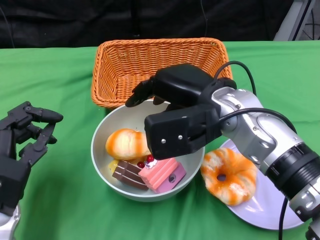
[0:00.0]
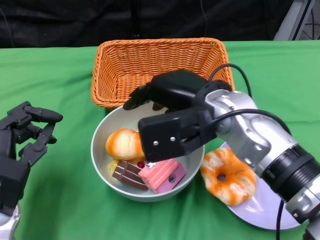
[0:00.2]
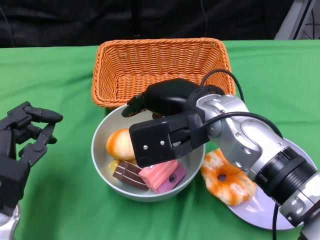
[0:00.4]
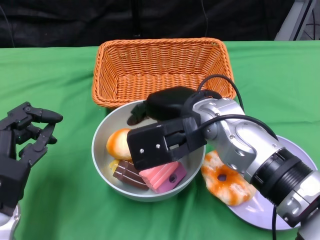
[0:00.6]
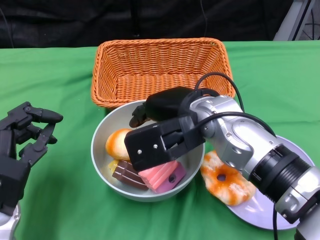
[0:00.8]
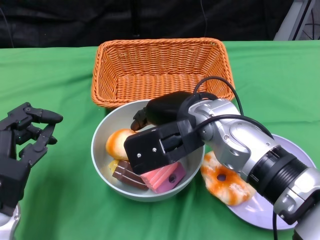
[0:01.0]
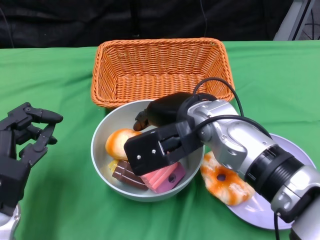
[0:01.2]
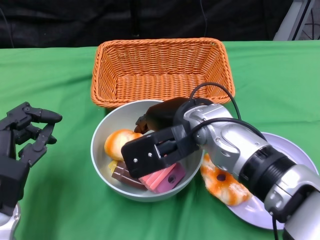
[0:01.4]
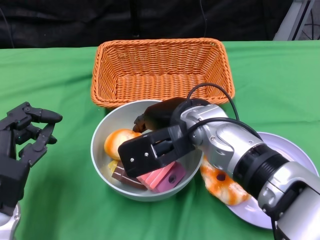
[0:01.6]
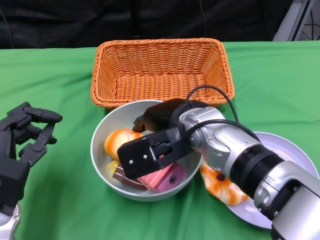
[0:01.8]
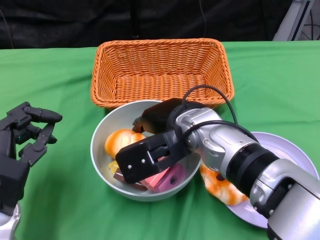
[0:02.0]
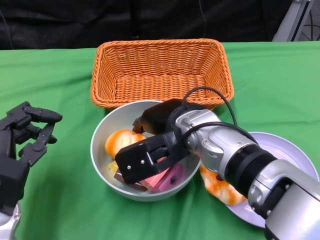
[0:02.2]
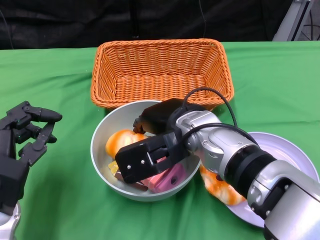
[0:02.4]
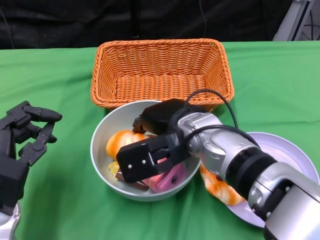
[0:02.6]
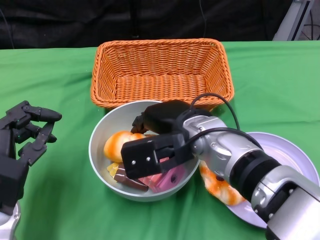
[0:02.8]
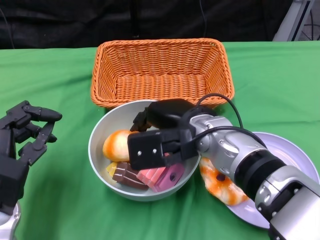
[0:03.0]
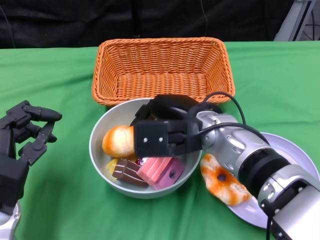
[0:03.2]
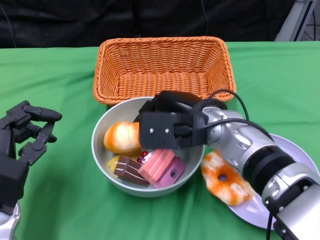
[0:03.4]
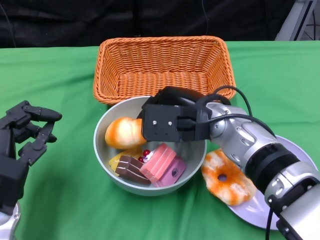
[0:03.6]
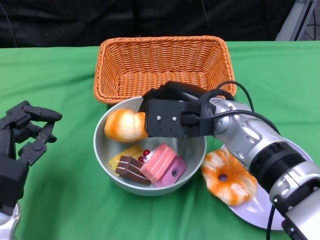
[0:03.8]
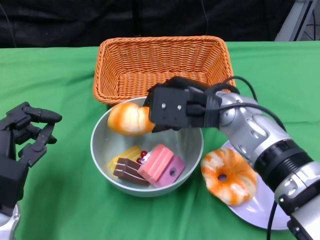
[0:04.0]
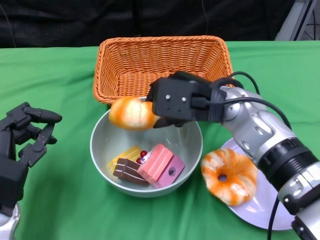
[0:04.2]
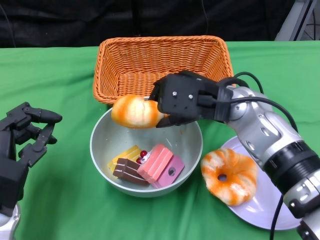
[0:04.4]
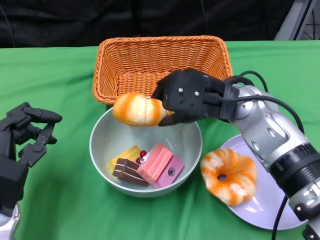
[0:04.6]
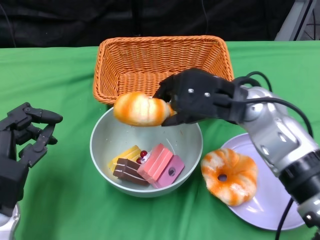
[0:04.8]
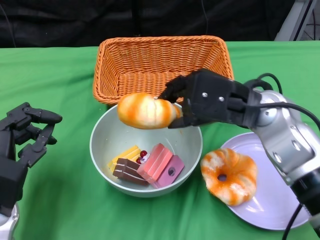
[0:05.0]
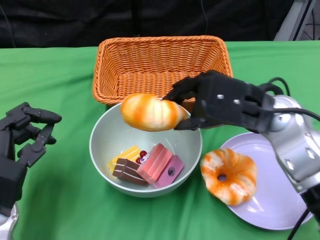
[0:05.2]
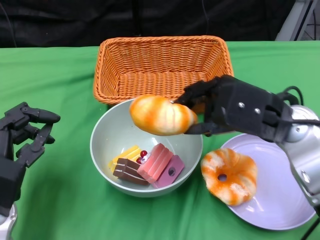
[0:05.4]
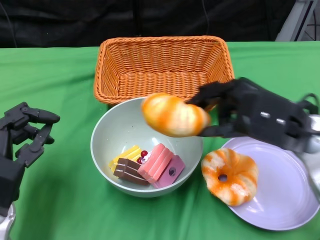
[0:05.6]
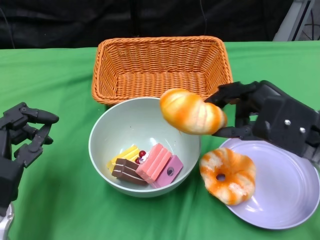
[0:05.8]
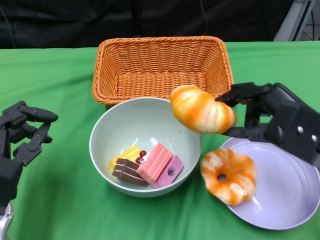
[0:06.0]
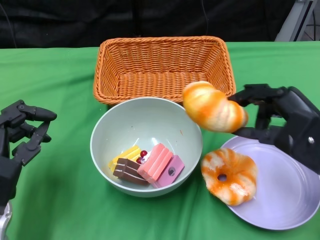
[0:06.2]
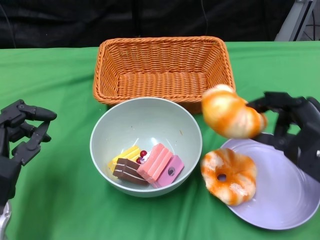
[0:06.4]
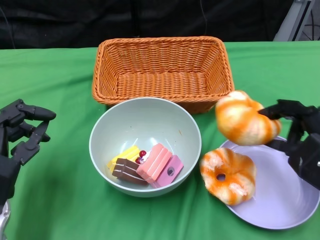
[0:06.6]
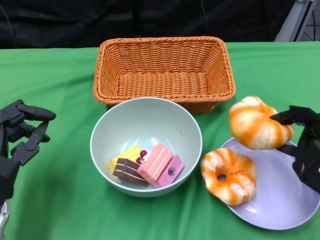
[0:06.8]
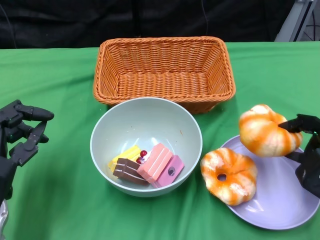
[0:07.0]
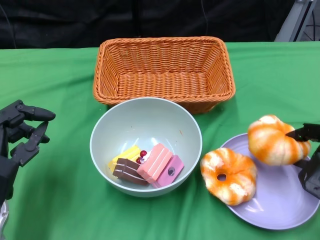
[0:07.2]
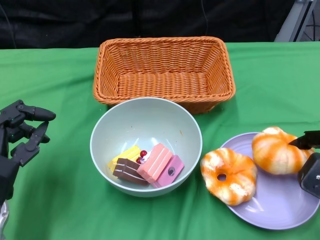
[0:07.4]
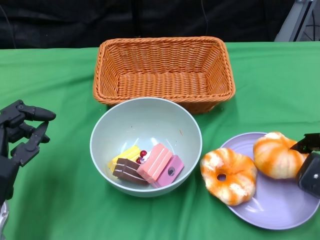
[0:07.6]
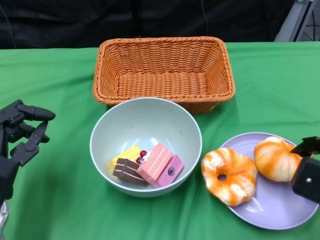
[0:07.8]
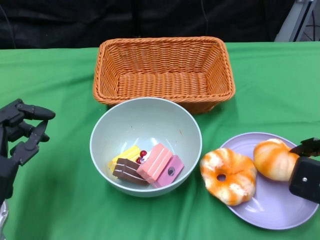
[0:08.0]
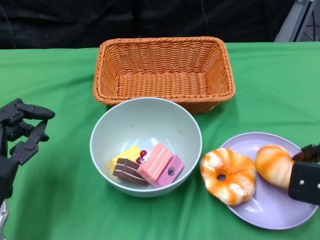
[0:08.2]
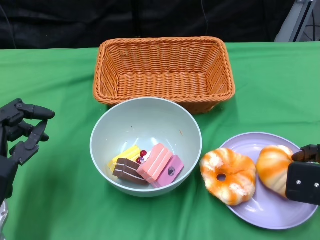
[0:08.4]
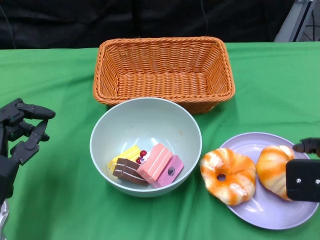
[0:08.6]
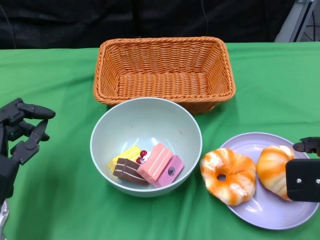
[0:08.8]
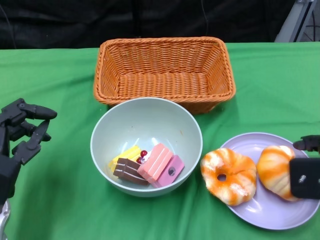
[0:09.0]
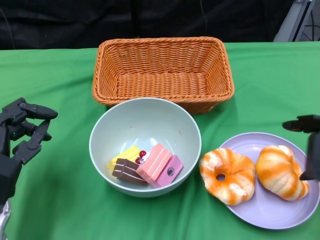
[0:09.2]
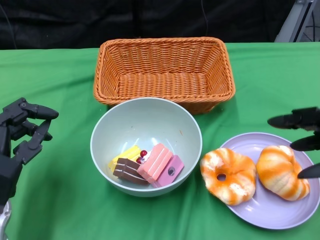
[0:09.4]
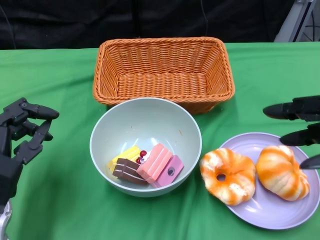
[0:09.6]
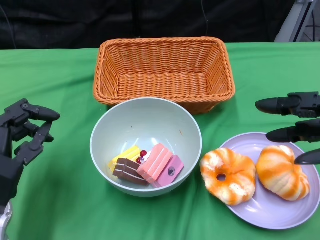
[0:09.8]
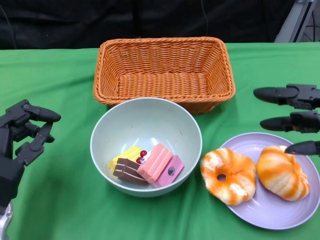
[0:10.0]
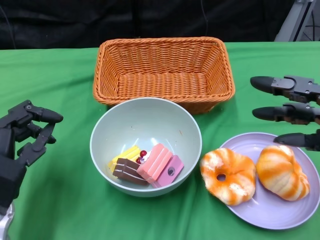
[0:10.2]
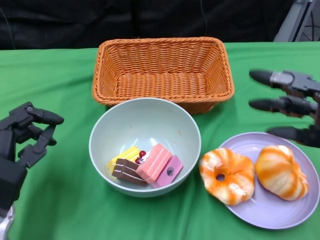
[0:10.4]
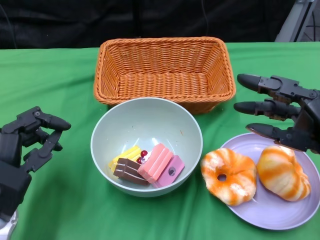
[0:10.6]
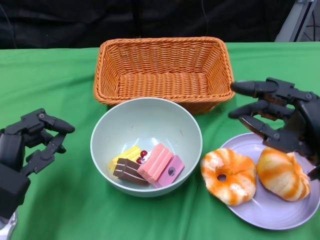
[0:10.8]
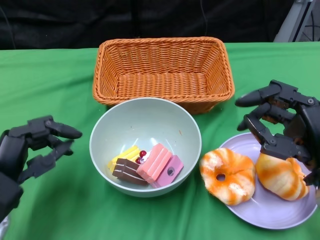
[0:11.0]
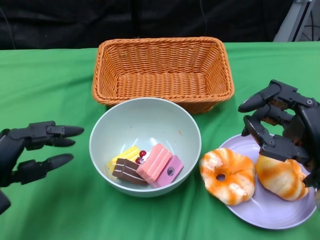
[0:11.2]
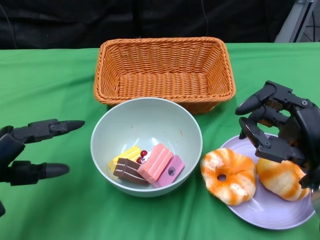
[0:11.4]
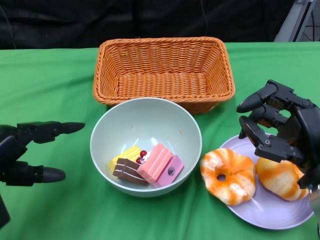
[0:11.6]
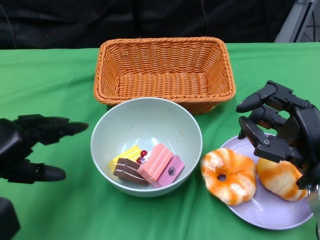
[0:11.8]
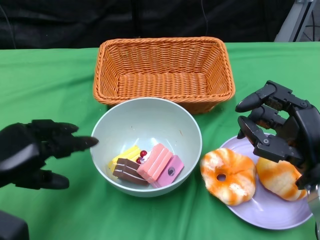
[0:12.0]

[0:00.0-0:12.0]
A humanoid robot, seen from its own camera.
Step, 0:00.0 to 0:09.0: Pick up the bread with the right gripper and place it on the plate.
0:00.0 to 0:01.6: The right hand shifts by about 5 cm.
0:01.6 to 0:03.0: There are only small adjustments of the hands.
0:03.0 to 0:04.4: The right hand shifts by roughly 5 cm.
0:04.4 to 0:06.0: The right hand is displaced to the right and backward by approximately 15 cm.
0:06.0 to 0:07.6: The right hand is displaced downward and to the right by some 10 cm.
0:07.6 to 0:09.0: The right hand goes some 10 cm upward.
0:10.4 to 0:12.0: The left hand changes place by roughly 5 cm. Meanwhile the right hand goes about 10 cm to the left and downward.

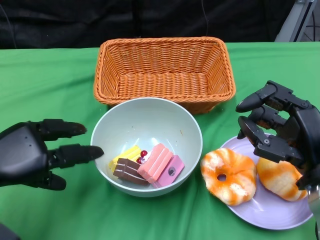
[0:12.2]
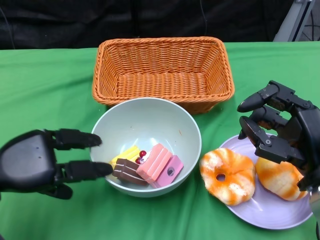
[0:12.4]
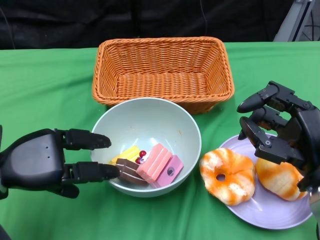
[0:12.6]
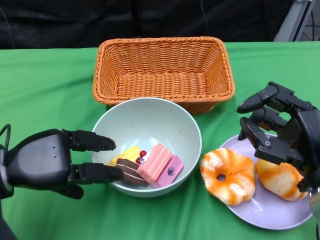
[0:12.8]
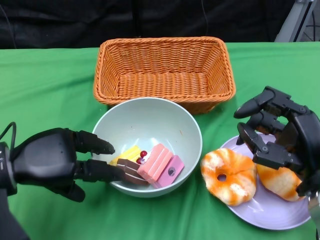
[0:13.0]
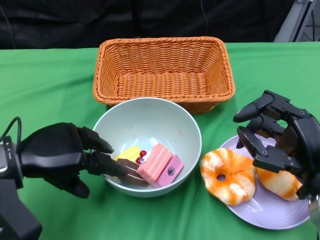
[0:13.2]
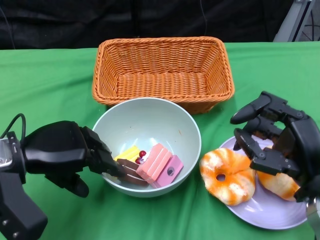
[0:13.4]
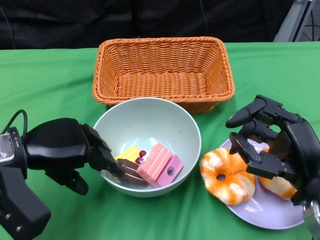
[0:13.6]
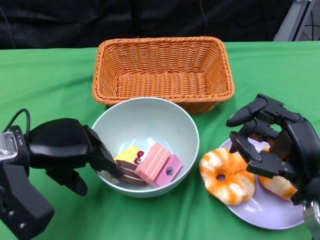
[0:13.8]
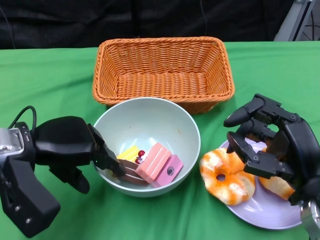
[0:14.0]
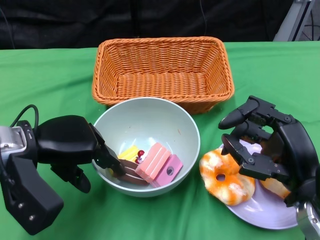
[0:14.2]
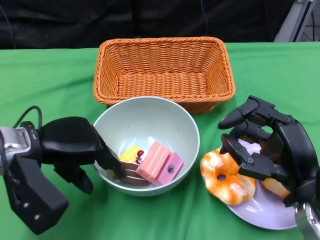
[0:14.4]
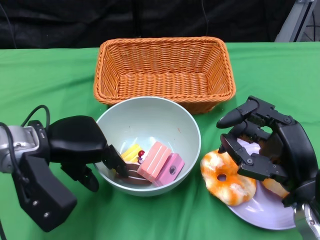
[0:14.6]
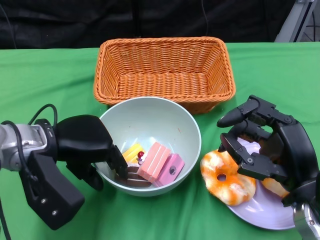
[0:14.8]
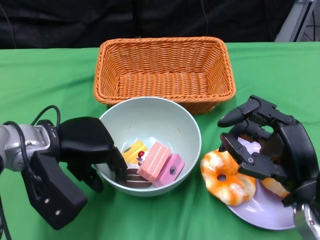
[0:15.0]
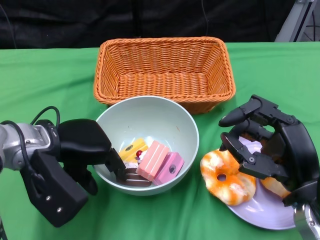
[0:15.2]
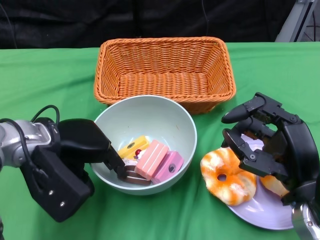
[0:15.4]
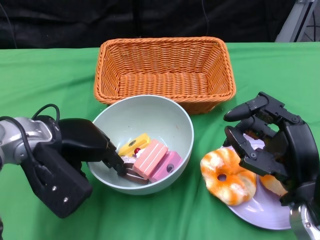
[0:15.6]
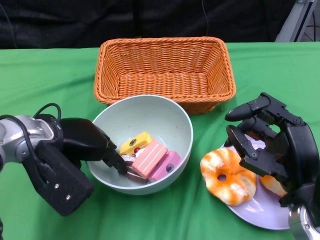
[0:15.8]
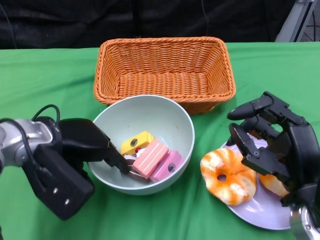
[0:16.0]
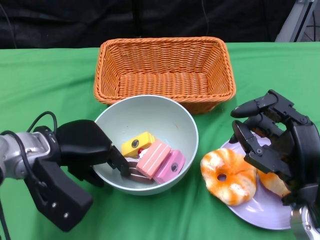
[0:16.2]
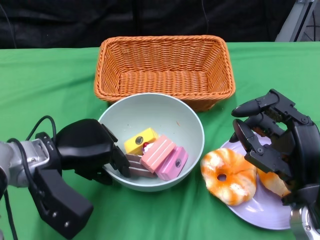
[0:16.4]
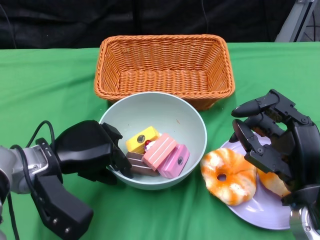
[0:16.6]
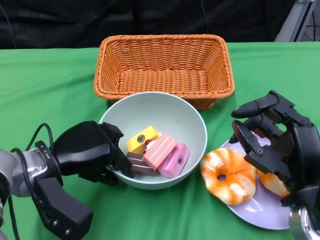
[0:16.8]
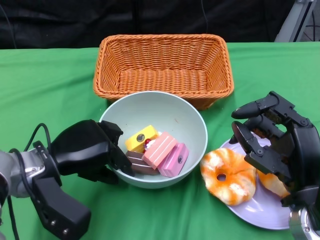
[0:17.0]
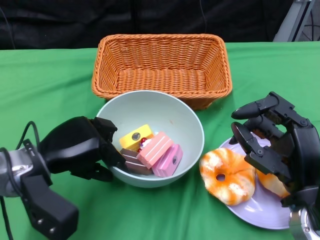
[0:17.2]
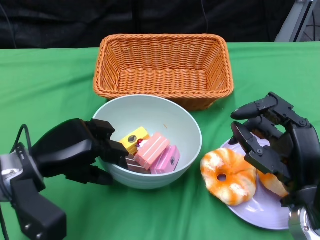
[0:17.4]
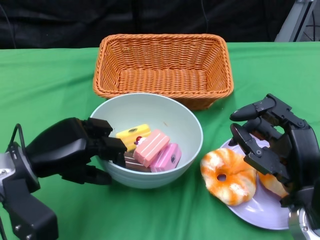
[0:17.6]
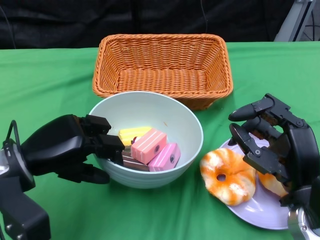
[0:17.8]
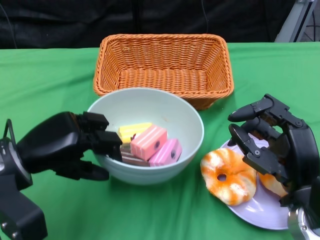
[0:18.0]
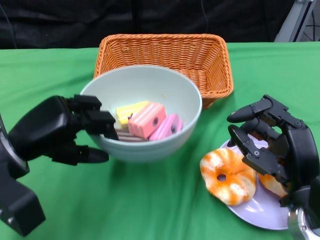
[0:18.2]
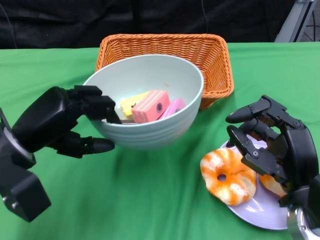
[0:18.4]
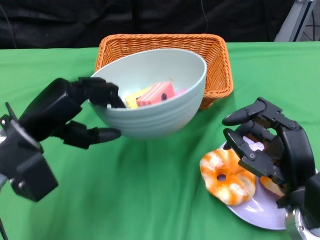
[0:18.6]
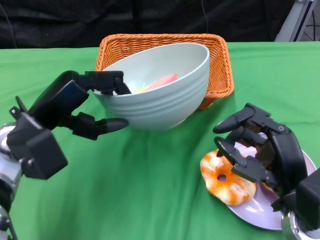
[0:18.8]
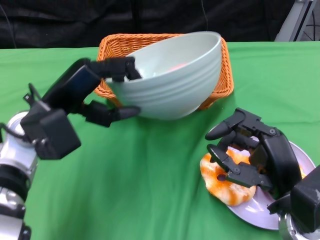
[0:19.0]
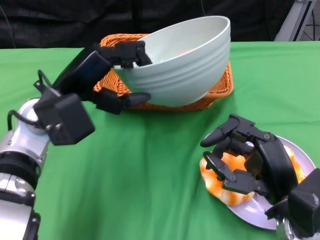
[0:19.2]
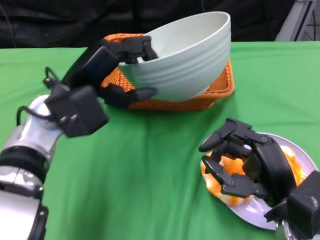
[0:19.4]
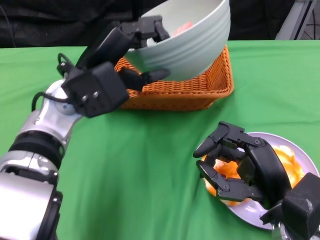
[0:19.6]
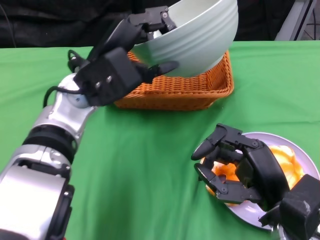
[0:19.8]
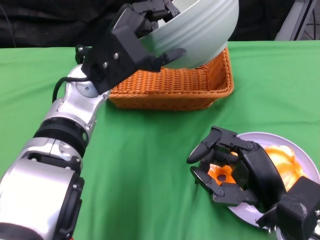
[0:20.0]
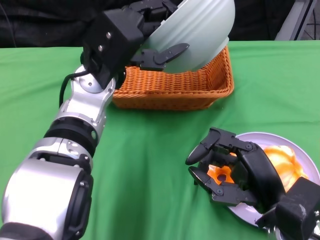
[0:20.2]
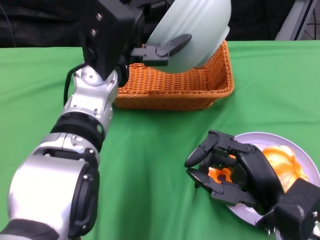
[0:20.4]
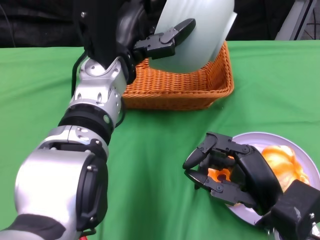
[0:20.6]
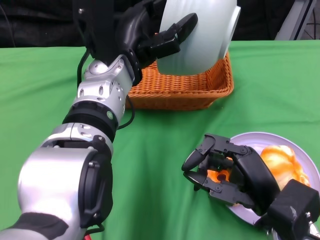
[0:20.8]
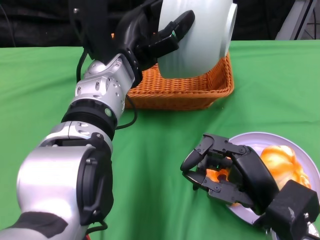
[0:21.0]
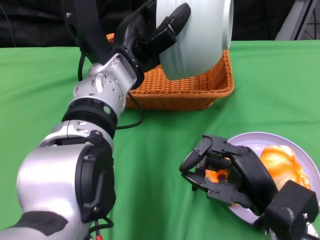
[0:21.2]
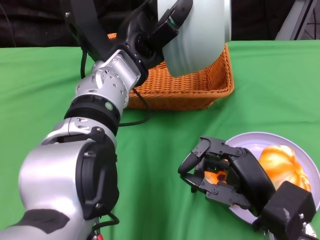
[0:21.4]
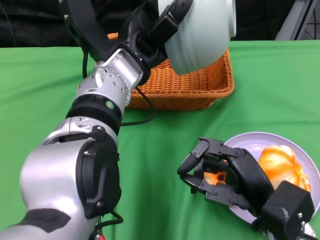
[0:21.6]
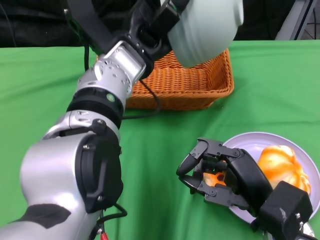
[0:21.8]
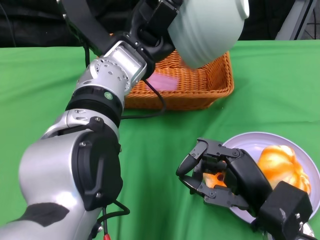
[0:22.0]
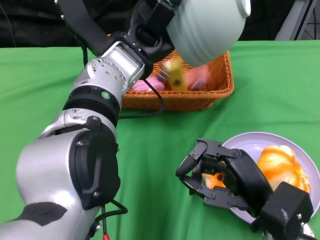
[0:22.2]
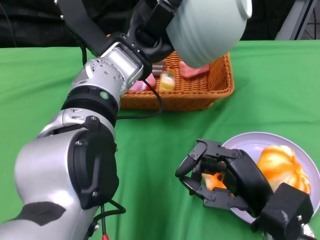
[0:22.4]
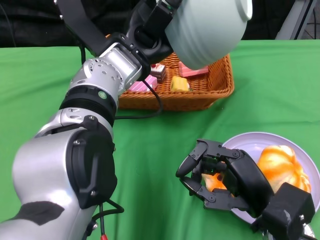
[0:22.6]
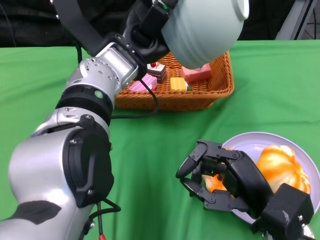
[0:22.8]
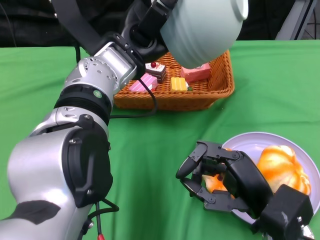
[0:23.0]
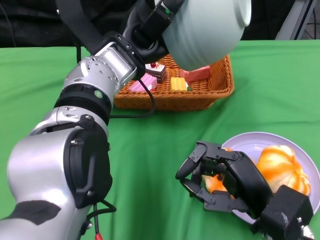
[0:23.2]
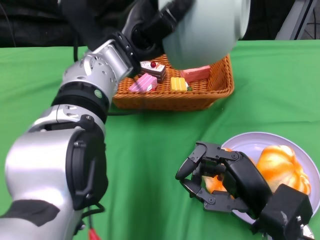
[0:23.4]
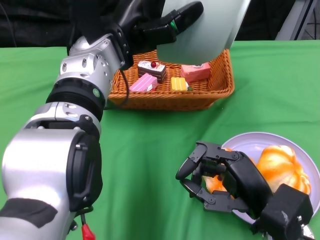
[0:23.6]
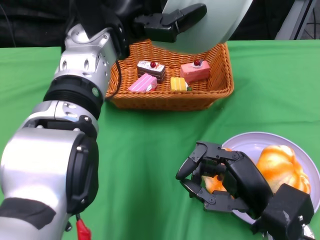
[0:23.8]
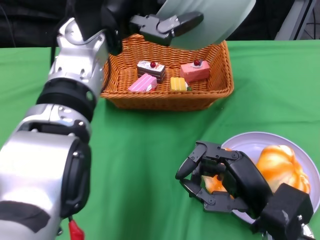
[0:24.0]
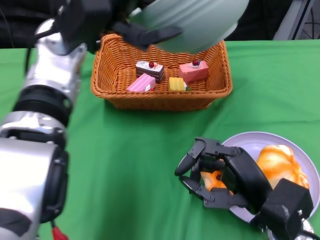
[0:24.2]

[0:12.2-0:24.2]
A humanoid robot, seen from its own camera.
Step, 0:12.2 to 0:16.2: Grasp the bowl with the left gripper.
Step, 0:16.4 to 0:22.6: Pour the cake into the basket with the left gripper.
0:12.2 to 0:13.8: The left hand is displaced to the right by roughly 5 cm.
0:16.6 to 0:18.2: The left hand ends up some 5 cm from where it was.
0:18.2 to 0:19.8: The left hand is displaced to the right, forward and upward by about 15 cm.
0:22.6 to 0:24.2: The left hand shifts approximately 5 cm to the left.
